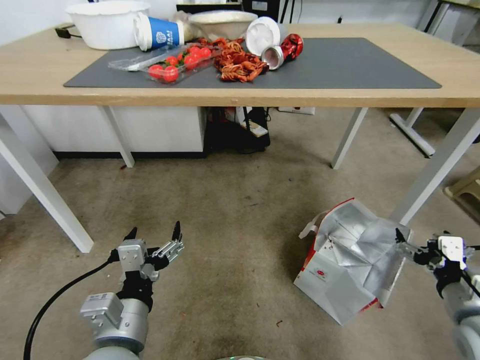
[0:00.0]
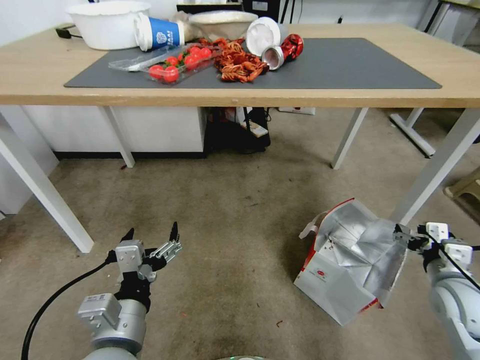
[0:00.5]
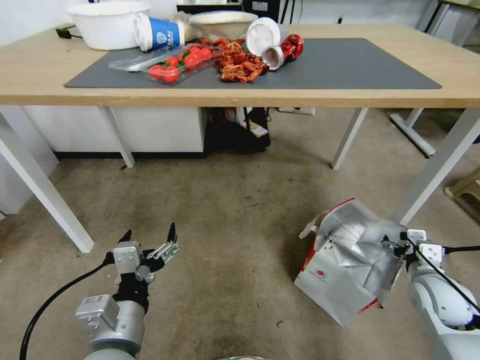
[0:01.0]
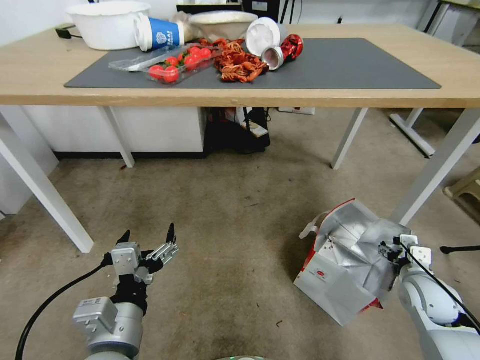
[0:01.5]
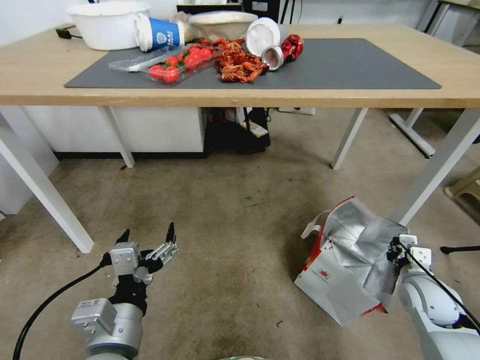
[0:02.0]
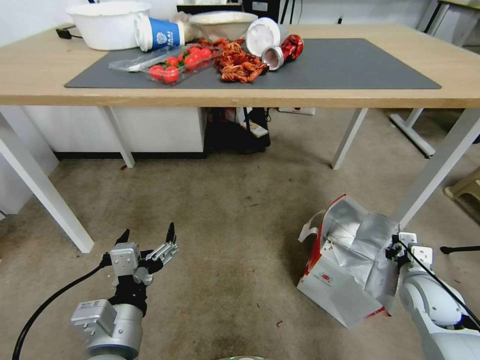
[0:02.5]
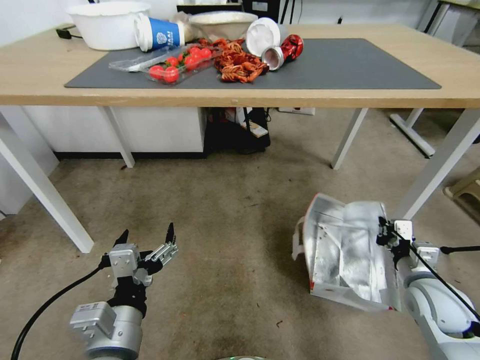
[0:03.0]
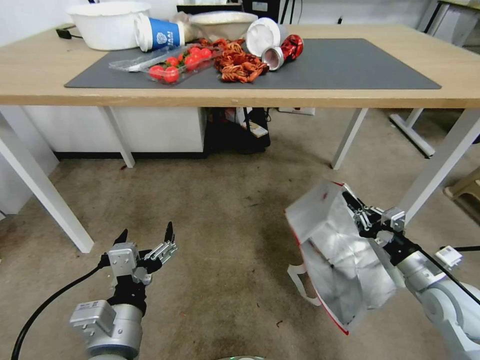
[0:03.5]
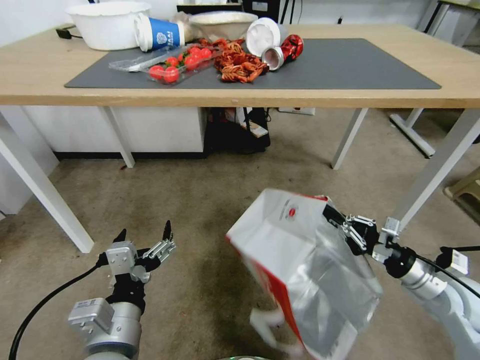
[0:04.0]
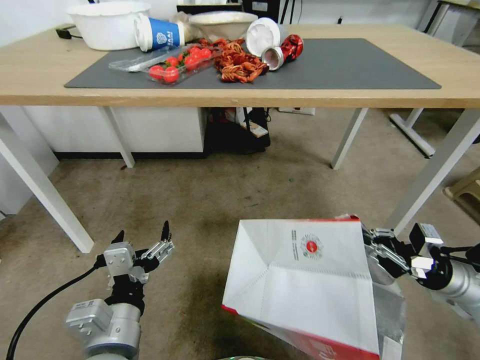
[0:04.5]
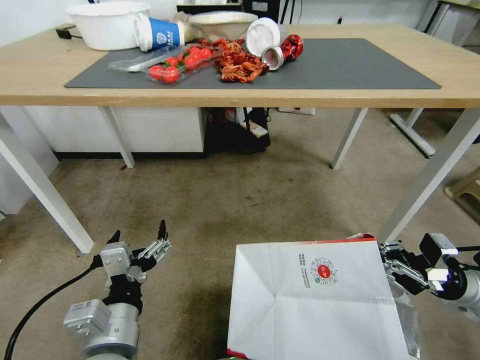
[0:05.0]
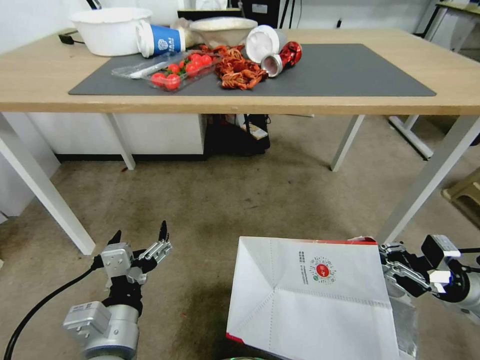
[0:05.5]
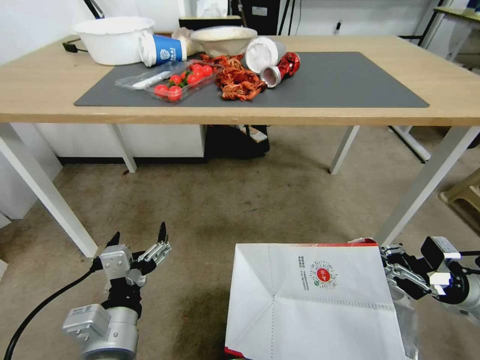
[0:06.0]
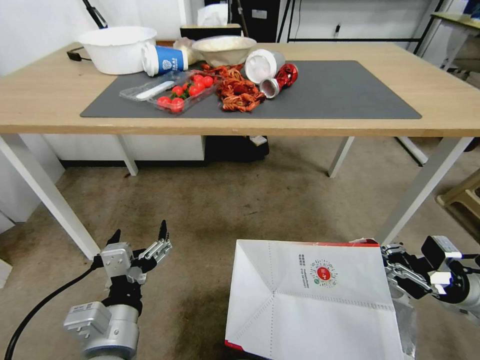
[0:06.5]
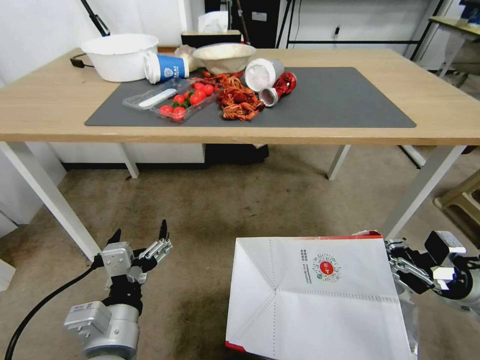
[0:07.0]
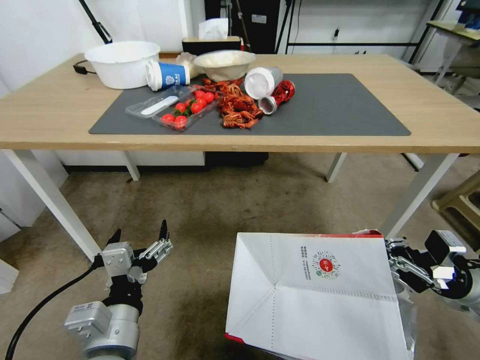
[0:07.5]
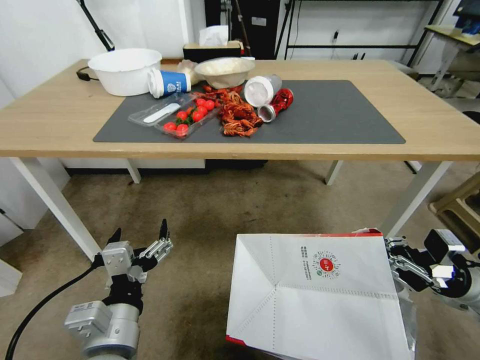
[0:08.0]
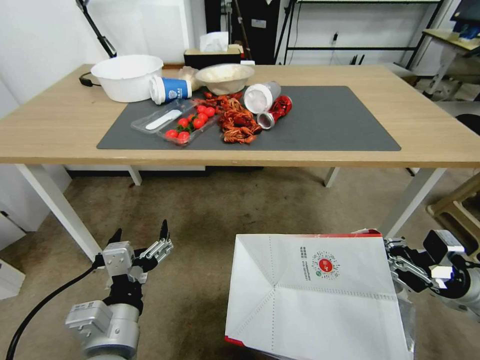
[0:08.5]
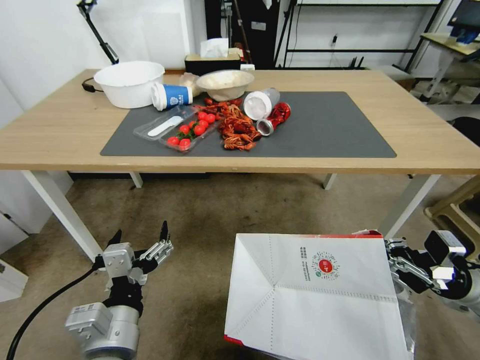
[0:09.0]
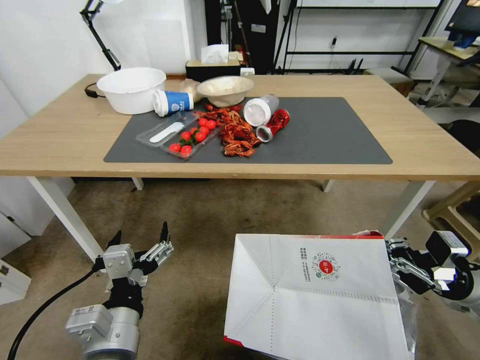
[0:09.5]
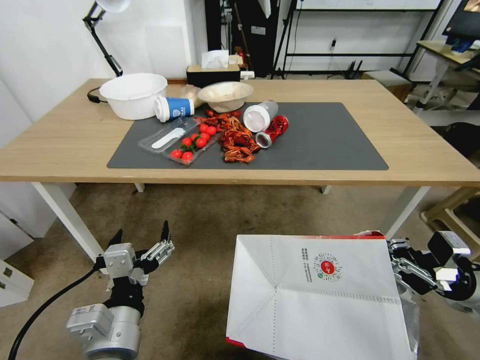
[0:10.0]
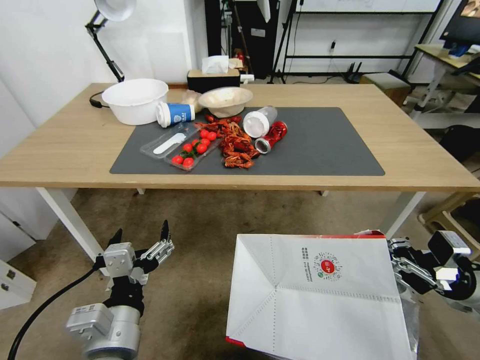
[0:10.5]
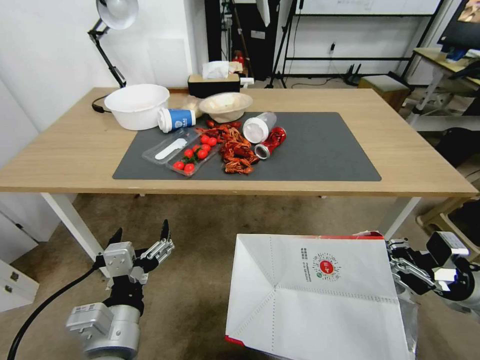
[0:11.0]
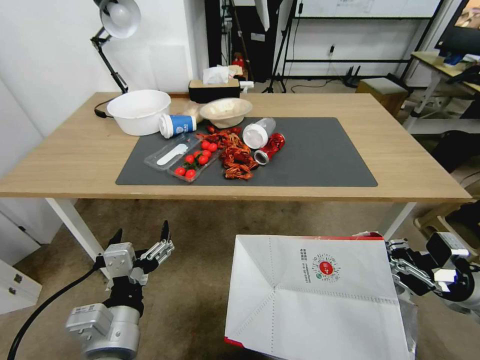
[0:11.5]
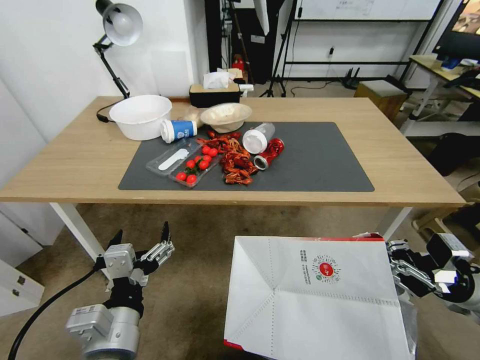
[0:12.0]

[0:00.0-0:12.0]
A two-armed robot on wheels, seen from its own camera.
Task of the whole recording: Pick up the food delivery bag from the floor and place it on the table.
0:00.0 to 0:02.0: The right gripper goes about 15 cm forward and downward, and closes.
0:02.0 to 0:04.0: The right gripper shifts roughly 5 cm upward.
0:04.0 to 0:06.0: The right gripper moves to the right, about 5 cm.

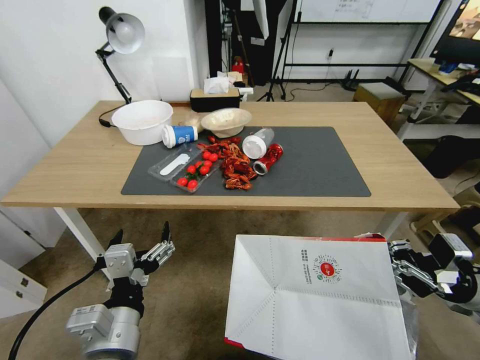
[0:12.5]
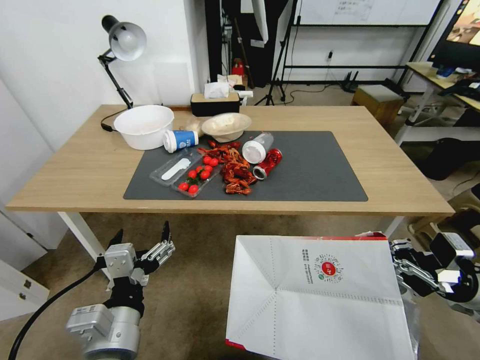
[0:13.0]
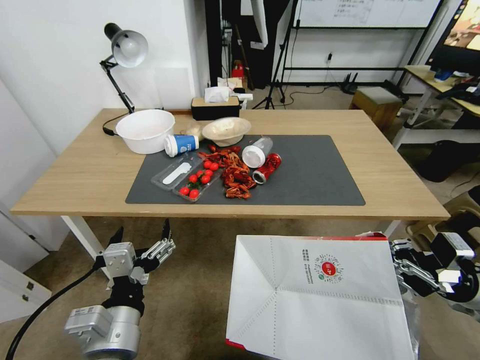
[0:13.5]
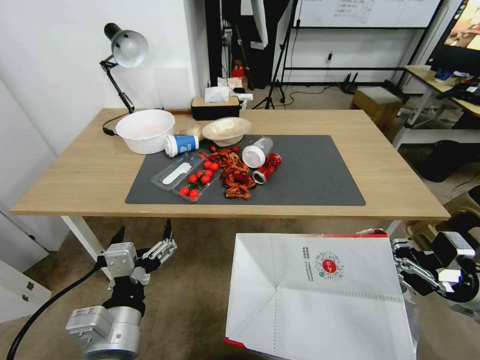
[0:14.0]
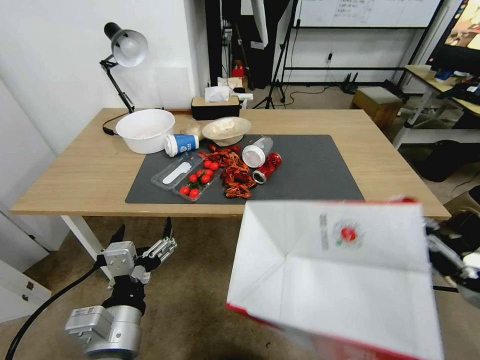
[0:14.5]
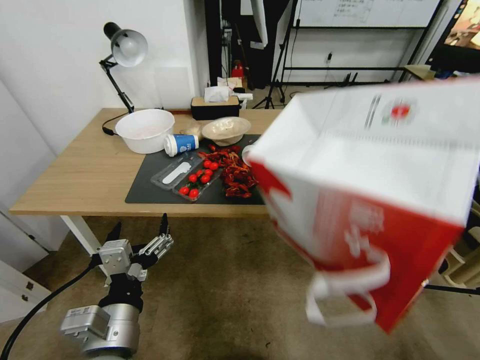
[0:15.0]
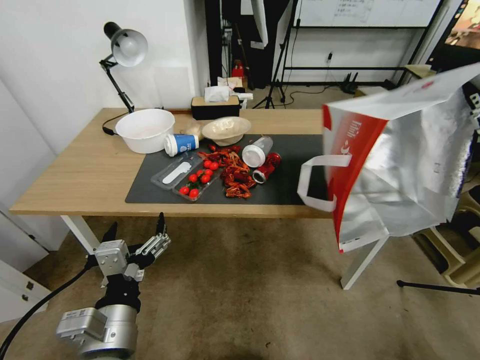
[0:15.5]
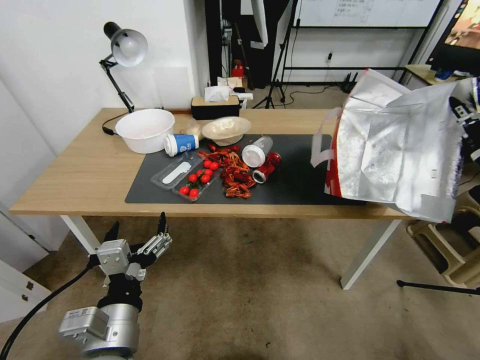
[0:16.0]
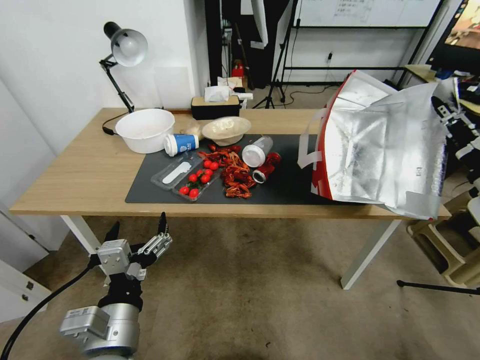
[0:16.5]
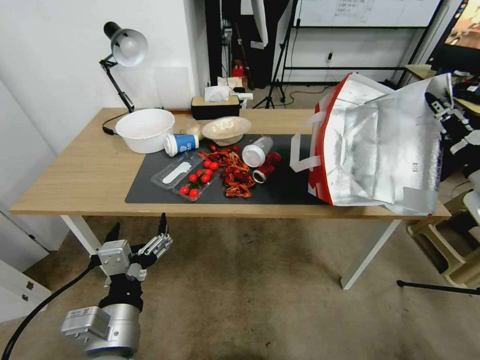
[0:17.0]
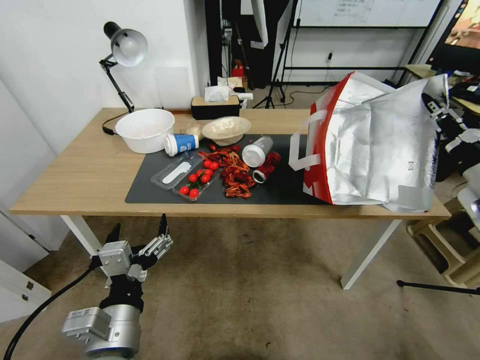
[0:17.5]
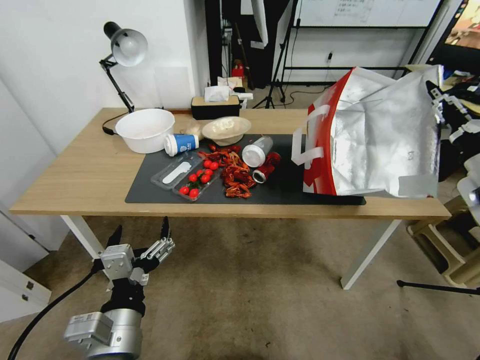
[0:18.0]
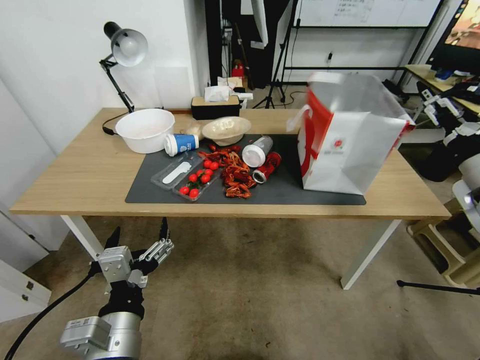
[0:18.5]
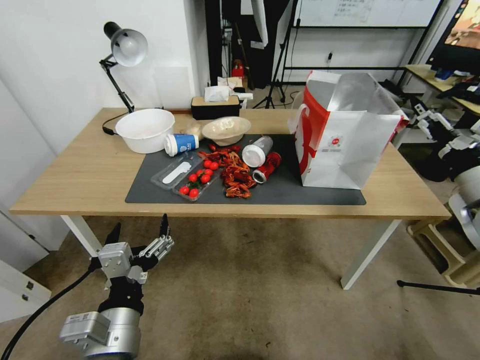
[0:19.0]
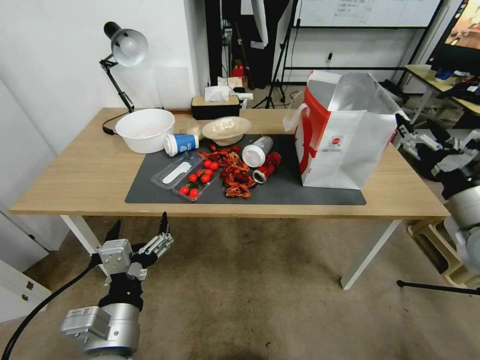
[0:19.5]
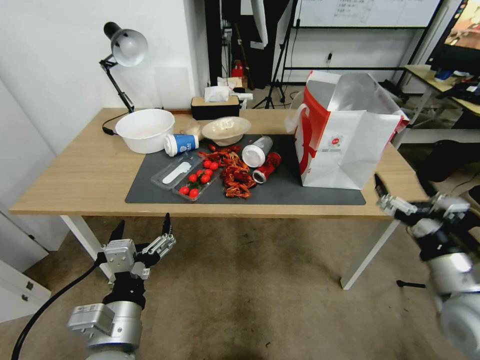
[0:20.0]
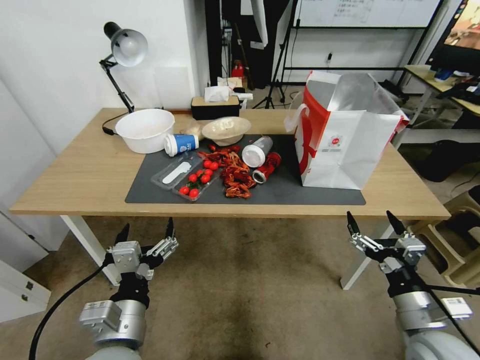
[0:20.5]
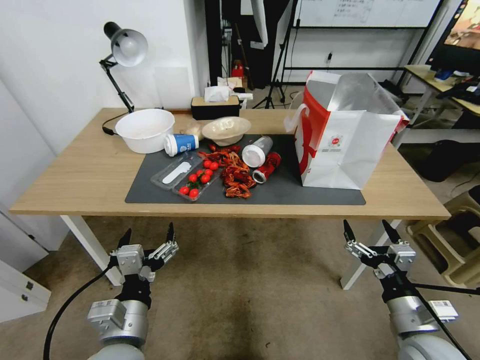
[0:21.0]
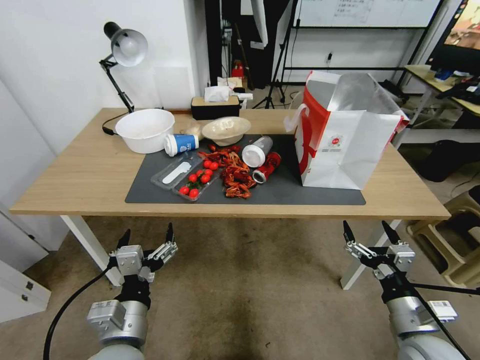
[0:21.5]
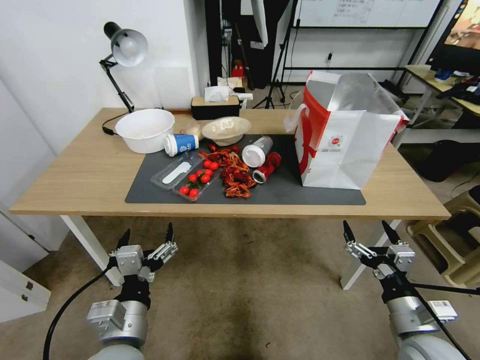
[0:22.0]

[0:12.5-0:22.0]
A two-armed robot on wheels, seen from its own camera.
Task of the whole recording: Pick up the food delivery bag from the floor and place it on the table.
0:14.5 to 0:16.5: The right gripper travels upward and forward by roughly 10 cm.
0:16.5 to 0:18.0: The right gripper opens up.
0:18.0 to 0:20.0: The right gripper shifts approximately 20 cm downward, backward and to the left, and opens.
0:20.0 to 0:22.0: The right gripper is displaced downward by roughly 10 cm.

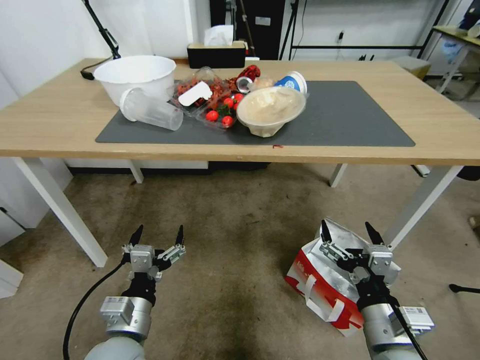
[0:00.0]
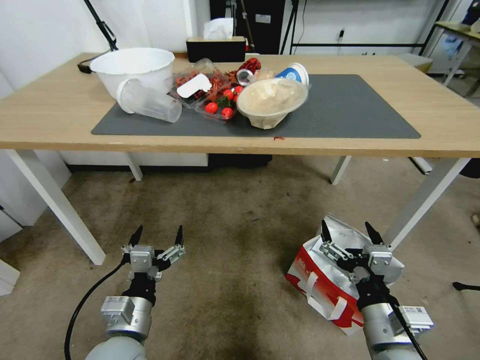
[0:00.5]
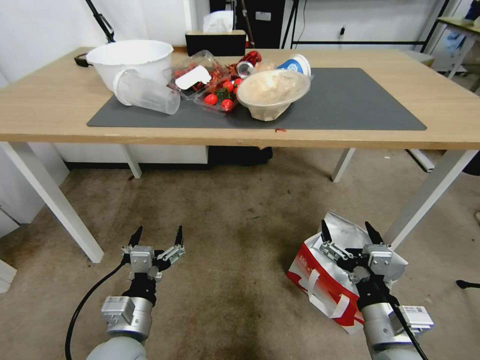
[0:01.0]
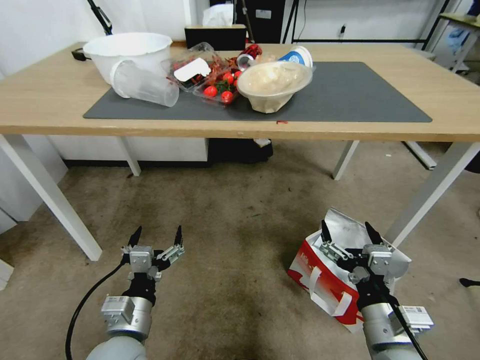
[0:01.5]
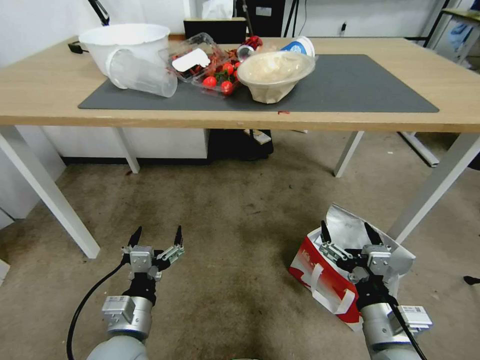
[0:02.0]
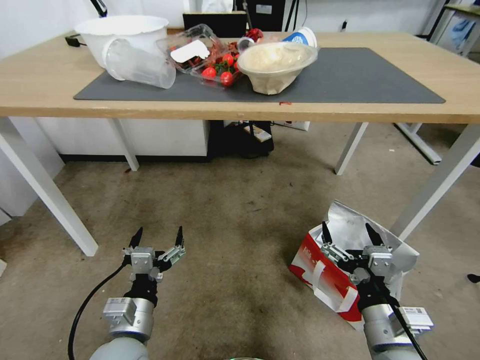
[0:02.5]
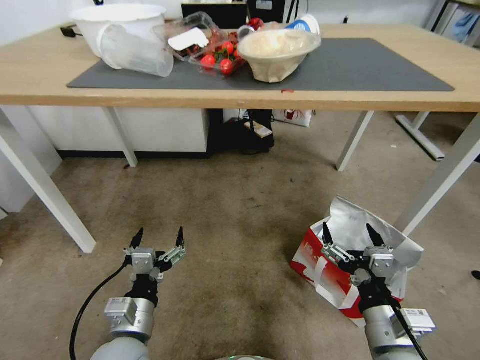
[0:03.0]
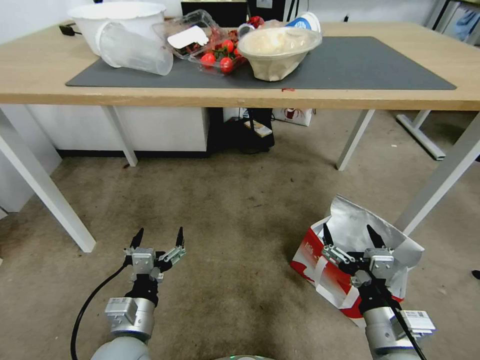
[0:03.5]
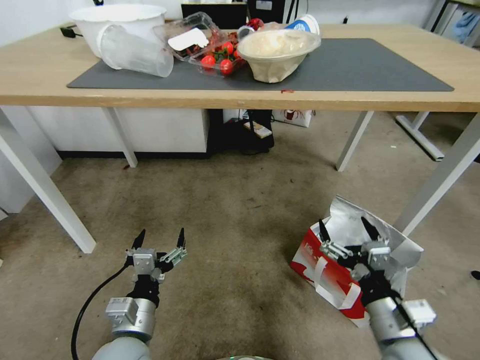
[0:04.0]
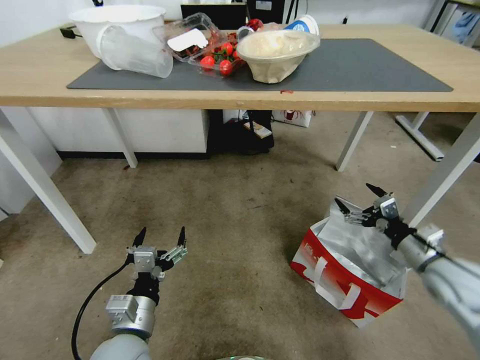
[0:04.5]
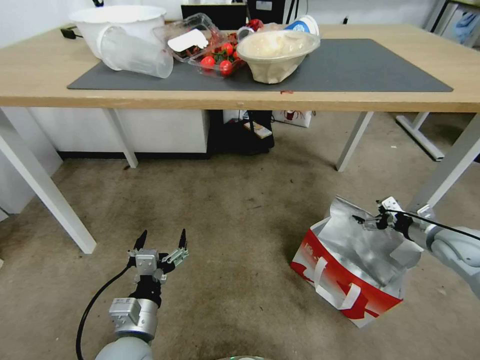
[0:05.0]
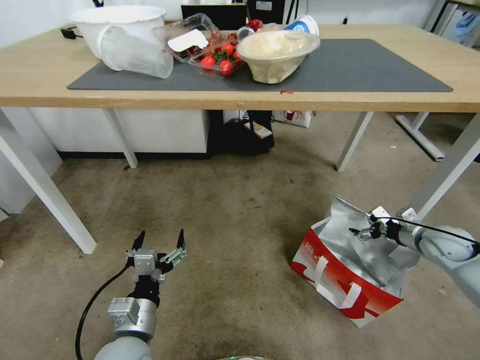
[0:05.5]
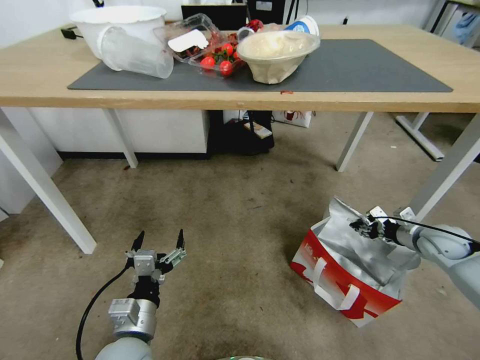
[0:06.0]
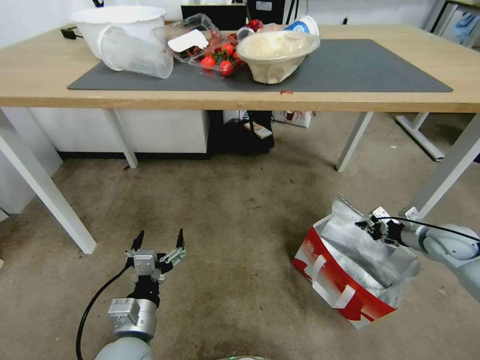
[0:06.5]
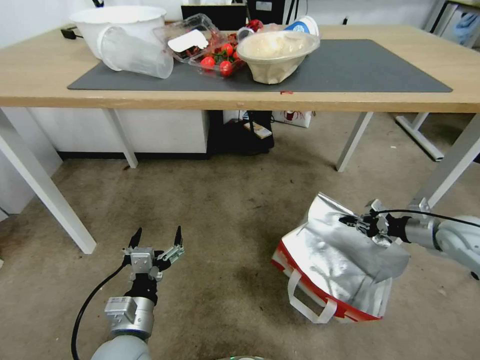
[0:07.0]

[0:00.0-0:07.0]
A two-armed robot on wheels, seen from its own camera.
Task of the whole recording: Pick up the food delivery bag from the floor and place it on the table.
0:03.5 to 0:05.0: The right gripper moves to the right and forward, about 35 cm.
0:05.0 to 0:07.0: The right gripper closes its fingers.
